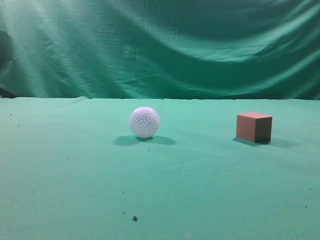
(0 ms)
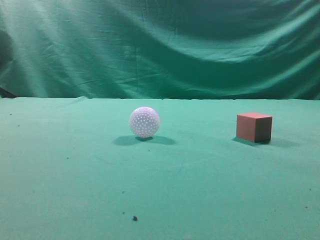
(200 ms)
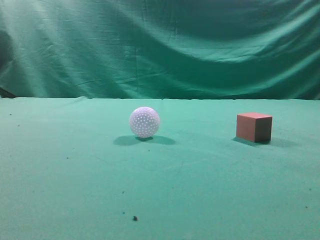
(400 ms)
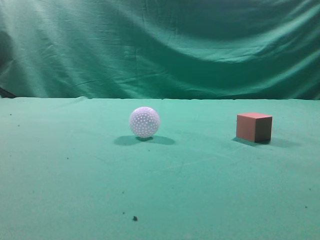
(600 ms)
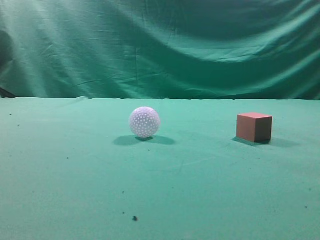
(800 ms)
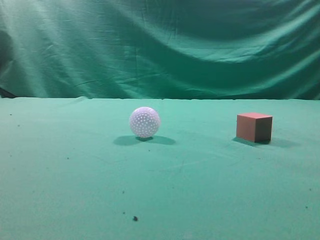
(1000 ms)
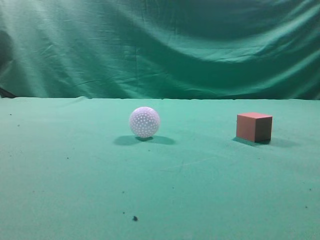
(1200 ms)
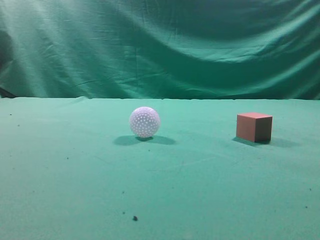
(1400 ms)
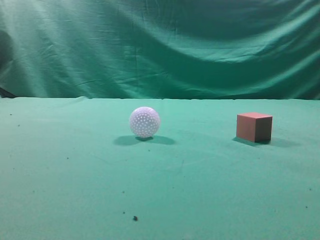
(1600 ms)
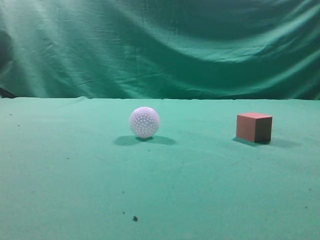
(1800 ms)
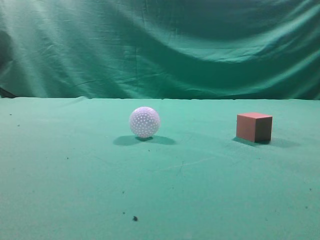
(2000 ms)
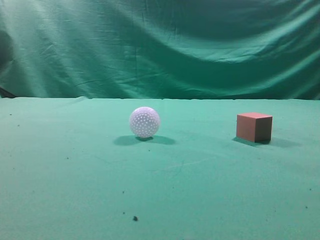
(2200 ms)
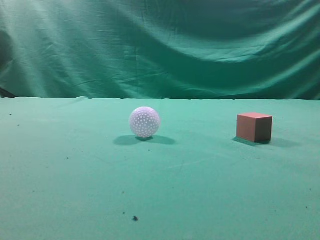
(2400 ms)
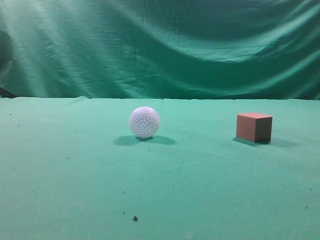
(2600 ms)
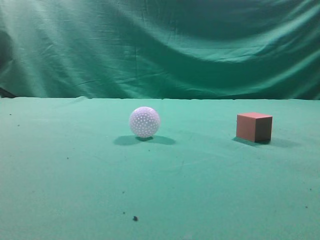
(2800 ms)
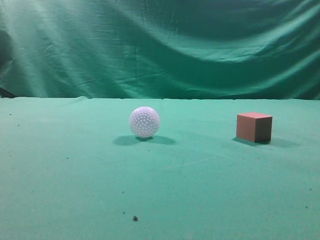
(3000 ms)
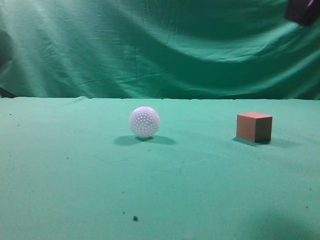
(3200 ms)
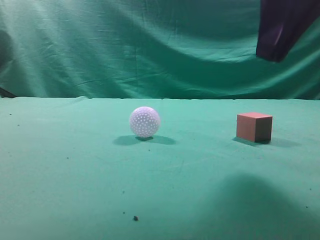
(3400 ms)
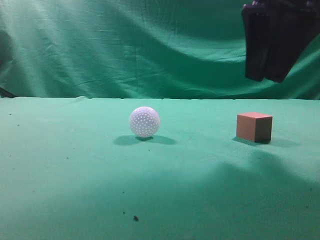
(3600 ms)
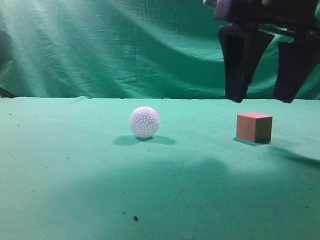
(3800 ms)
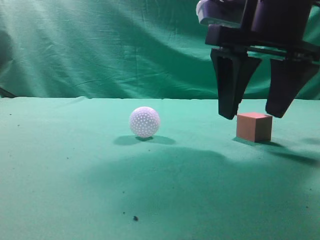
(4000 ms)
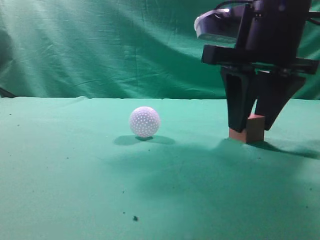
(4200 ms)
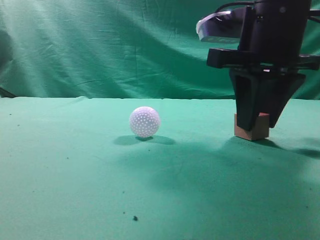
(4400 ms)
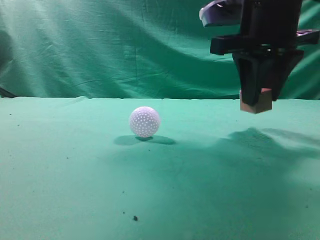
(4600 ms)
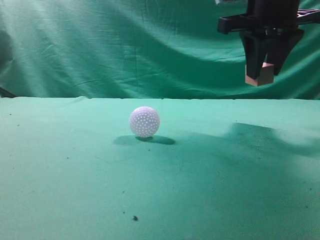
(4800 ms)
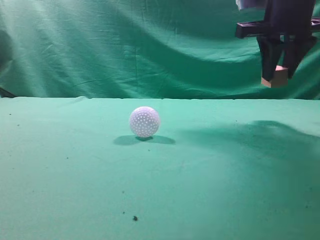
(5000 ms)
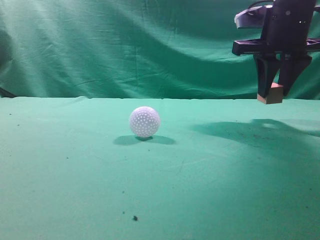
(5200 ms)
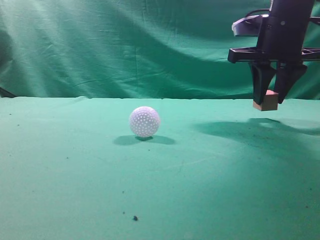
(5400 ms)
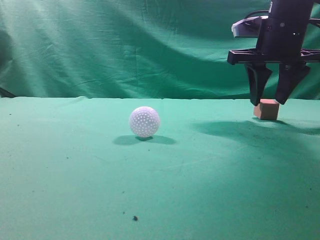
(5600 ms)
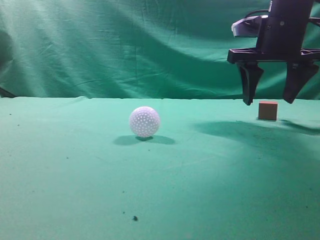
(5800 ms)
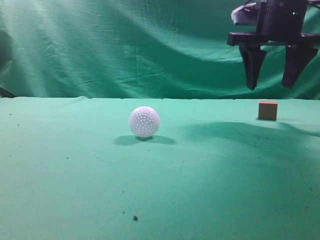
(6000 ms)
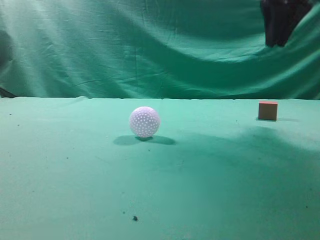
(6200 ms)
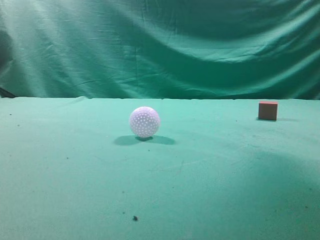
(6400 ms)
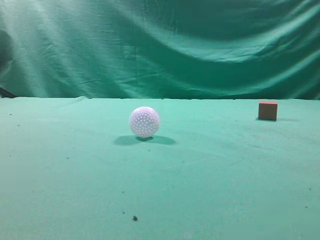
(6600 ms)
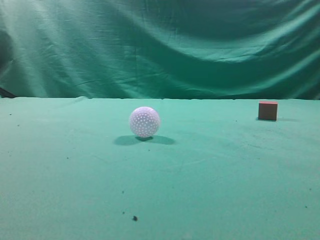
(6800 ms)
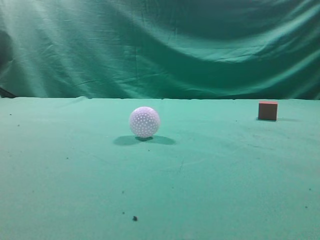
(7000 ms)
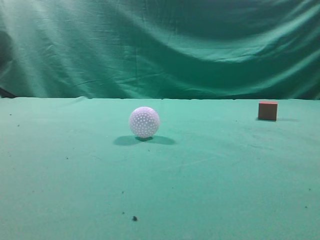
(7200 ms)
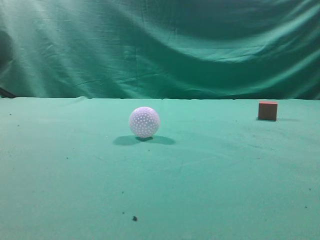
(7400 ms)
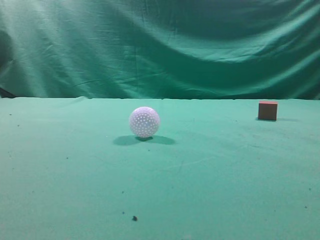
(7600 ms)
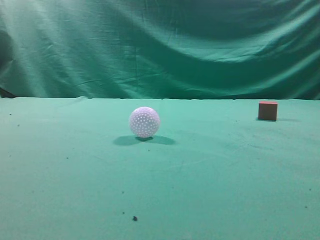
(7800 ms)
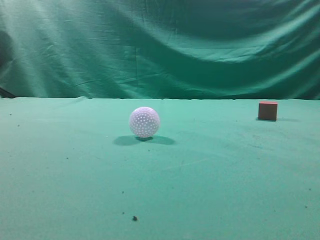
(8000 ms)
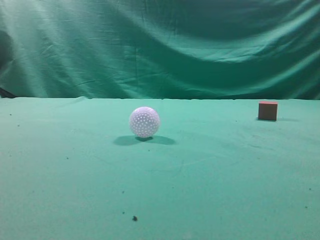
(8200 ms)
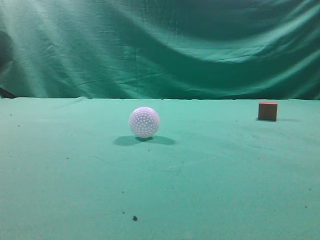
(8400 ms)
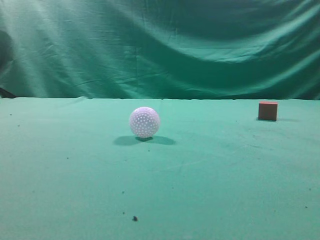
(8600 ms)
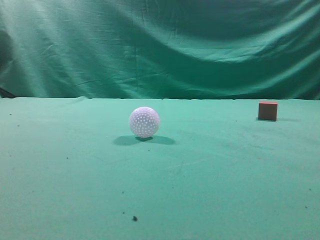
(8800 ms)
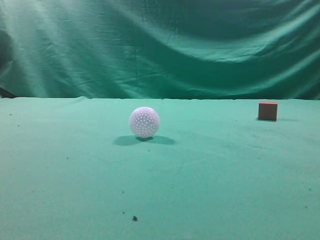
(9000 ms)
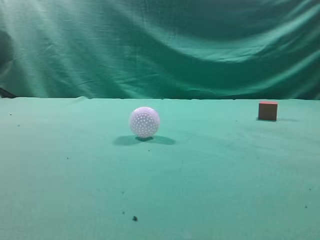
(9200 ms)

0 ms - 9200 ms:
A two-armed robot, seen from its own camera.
Task of the whole recording: pick up the cube block and place it in another position on the table.
Step, 0 ms - 4400 ms: Pick up the small cube.
Step, 4800 ms - 5600 ms: Place the small cube on the ahead of the table.
3000 ms - 4600 ms: The right gripper moves forward, downward and to the left, roughly 20 cm, and opens up.
4600 ms - 6200 ms: The right gripper goes some 10 cm upward and to the right, and opens and closes again.
6200 ms - 7600 ms: The right gripper moves backward, about 30 cm.
